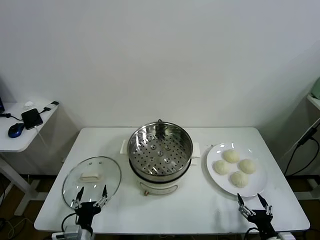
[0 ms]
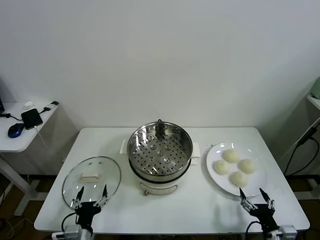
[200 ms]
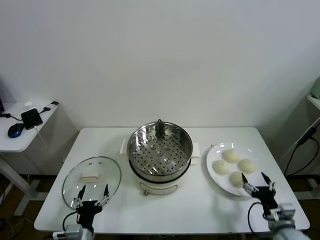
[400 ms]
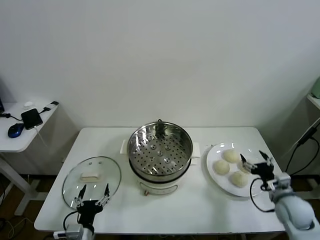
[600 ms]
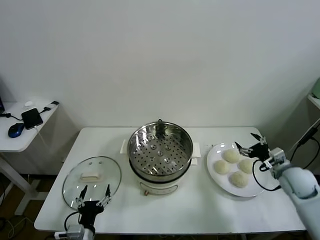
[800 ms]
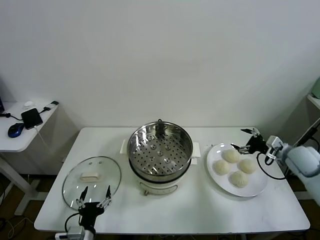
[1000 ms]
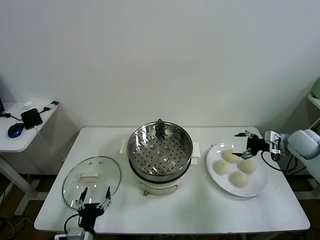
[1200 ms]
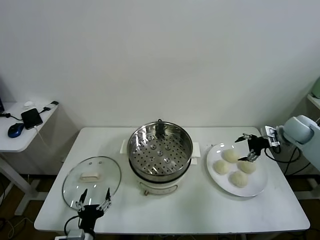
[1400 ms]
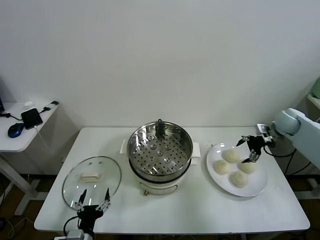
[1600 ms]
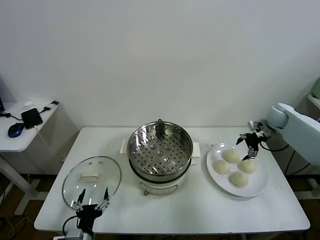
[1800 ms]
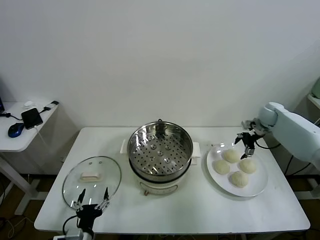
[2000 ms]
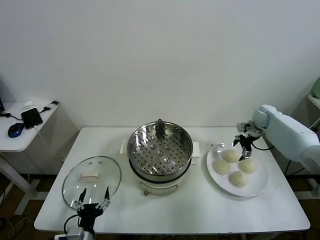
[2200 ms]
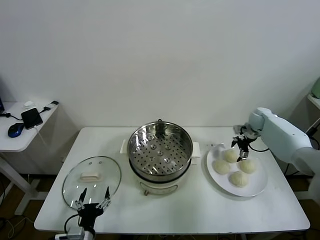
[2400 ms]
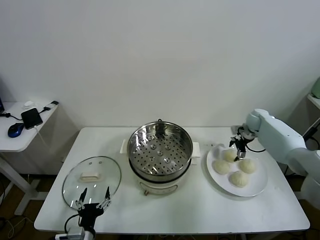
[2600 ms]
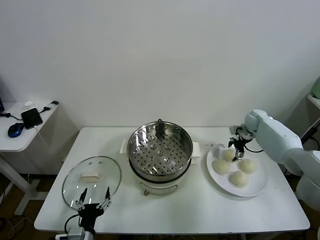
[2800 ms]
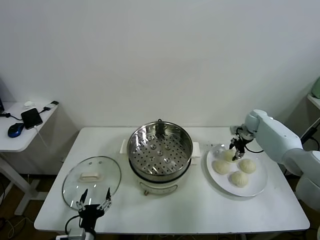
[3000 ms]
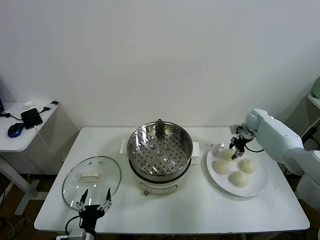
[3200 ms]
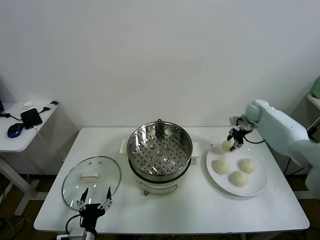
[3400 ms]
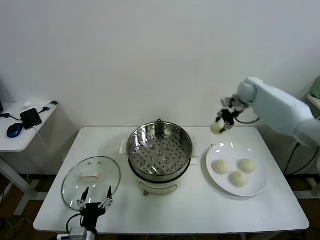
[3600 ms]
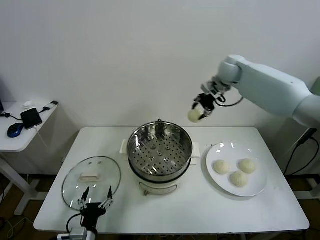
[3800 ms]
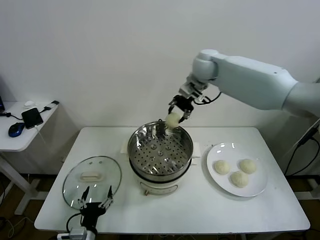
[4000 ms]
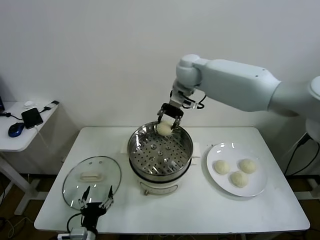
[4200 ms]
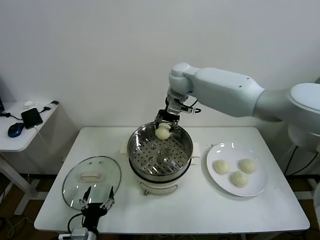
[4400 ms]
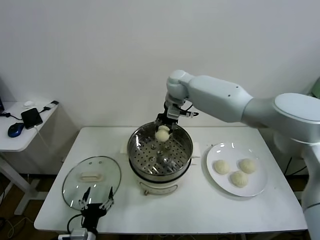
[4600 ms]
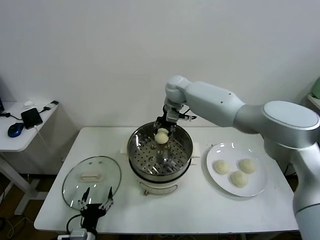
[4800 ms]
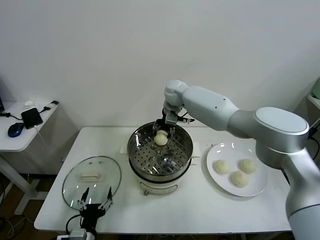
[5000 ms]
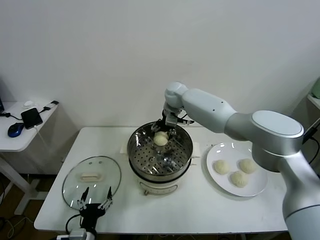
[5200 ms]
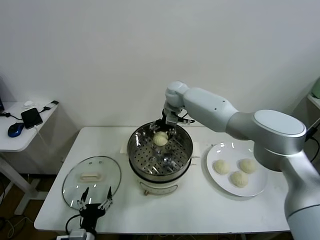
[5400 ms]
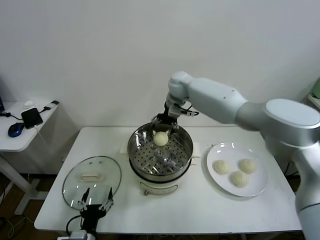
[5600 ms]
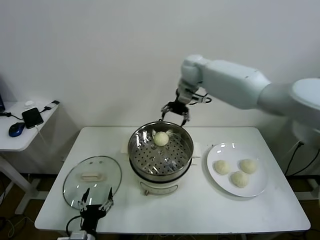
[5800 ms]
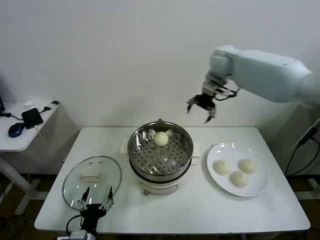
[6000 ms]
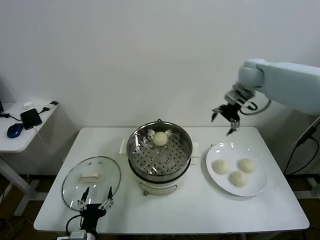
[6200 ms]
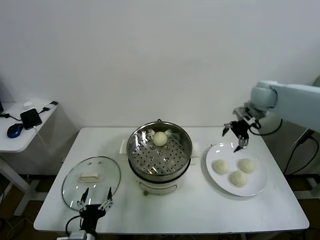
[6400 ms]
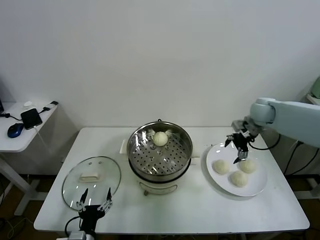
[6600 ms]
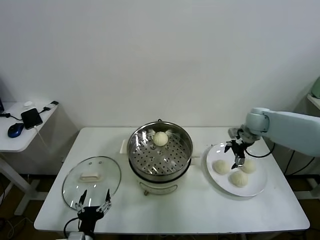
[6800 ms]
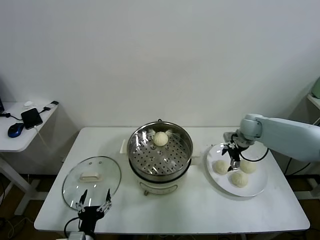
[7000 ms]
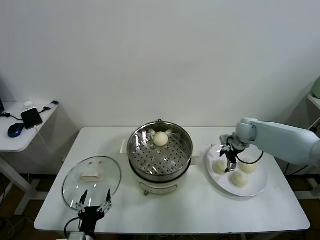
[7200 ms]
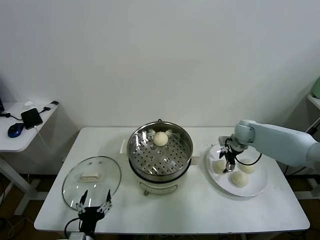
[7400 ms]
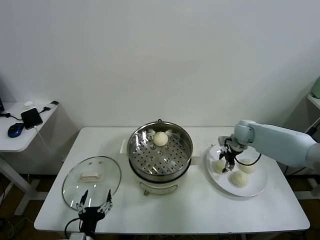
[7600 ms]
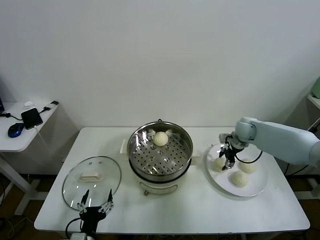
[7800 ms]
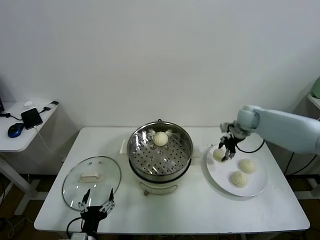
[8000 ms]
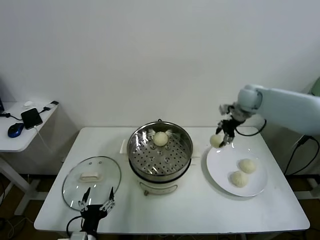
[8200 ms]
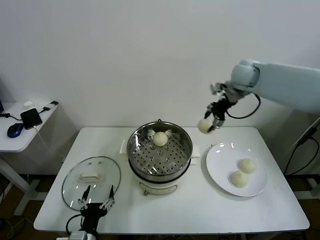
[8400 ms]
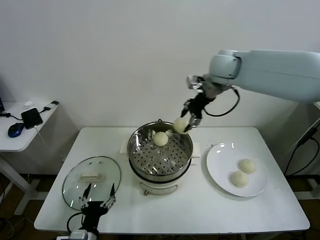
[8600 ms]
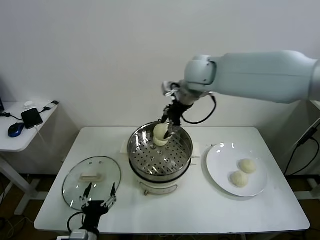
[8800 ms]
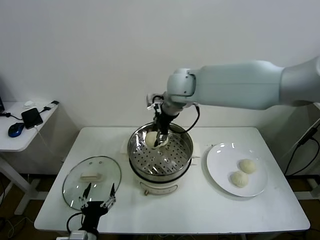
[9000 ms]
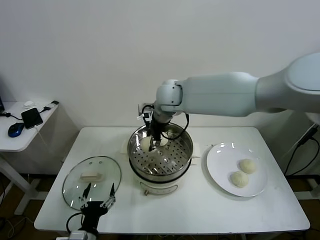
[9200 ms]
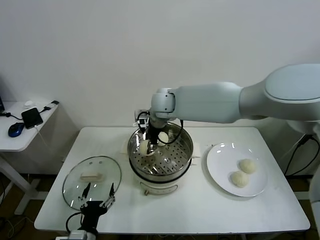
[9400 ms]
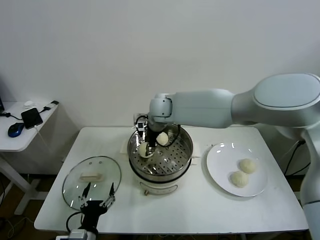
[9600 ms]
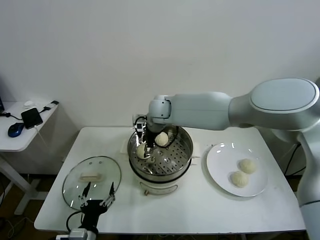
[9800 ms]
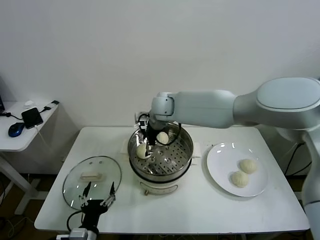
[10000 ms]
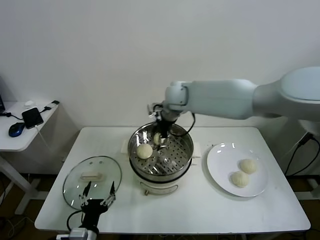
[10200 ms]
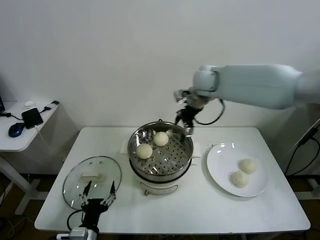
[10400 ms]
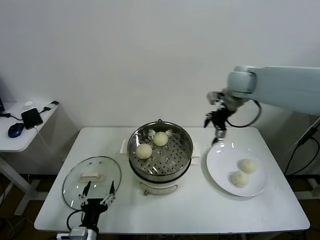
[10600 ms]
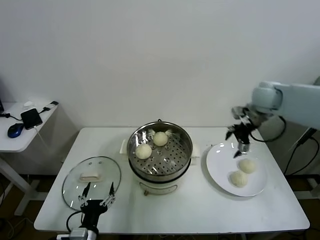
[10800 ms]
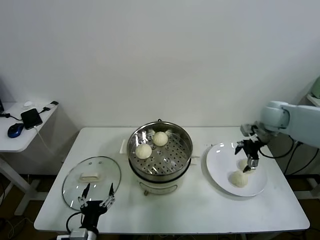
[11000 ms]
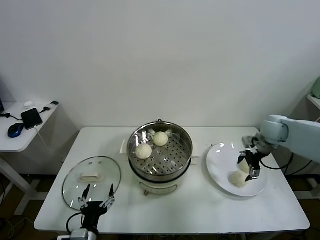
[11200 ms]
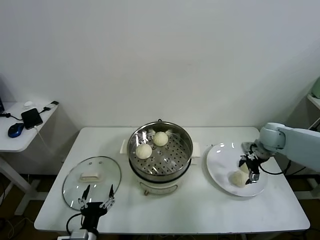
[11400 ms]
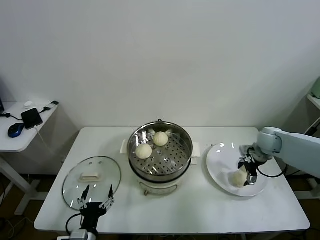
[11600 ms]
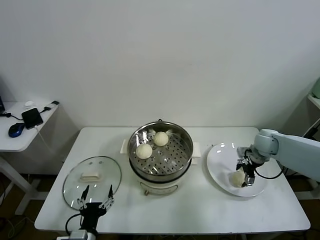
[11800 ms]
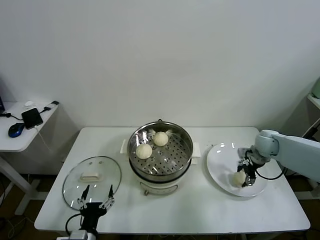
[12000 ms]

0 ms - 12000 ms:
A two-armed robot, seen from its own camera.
Task of the whole recording: take steamed baozi put them in steamer.
Step, 0 ms - 3200 ms: Grasp the baozi in the plate with right gripper.
Step, 3400 ms - 5400 ms: Place the baozi on the steamer with right gripper.
Step, 5600 ms - 7600 ms: Grasp the baozi in the plate with right gripper.
Step, 7800 ms - 9800 ms: Place the baozi on the steamer with right gripper.
Step, 10200 ms - 12000 ms: Grasp the baozi in the plate with right gripper.
1600 ms - 3000 ms: The right gripper shifts approximately 10 cm downward and forward, and closes.
3000 ms - 4400 ms: The right gripper goes roughly 40 cm to the left and upward.
4400 ms - 6000 ms: The right gripper is displaced to the right by some 20 cm, and opens up.
6000 ms - 7600 ms: The right gripper is displaced downward by about 25 cm, and closes up.
7600 ms - 9000 ms: The right gripper shifts about 35 cm to the left and upward.
9000 ms - 10400 ms: The right gripper heads to the right, covering some 15 cm, and opens.
10400 ms - 12000 ms: The right gripper goes about 30 cm downward and to the right, and closes.

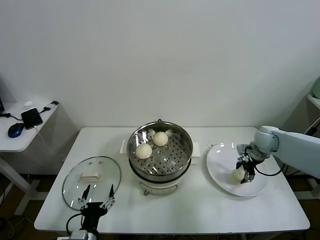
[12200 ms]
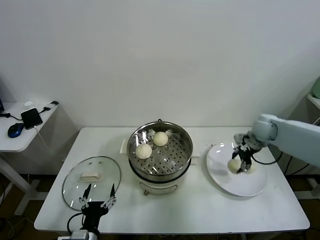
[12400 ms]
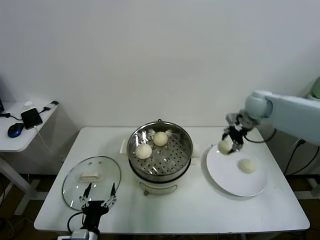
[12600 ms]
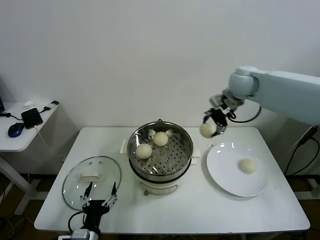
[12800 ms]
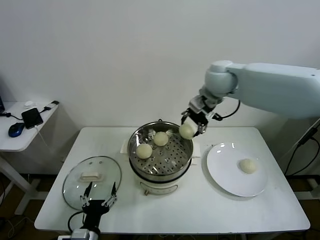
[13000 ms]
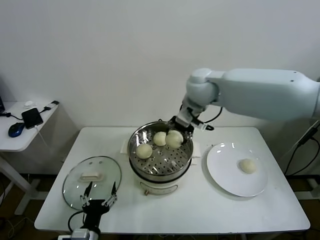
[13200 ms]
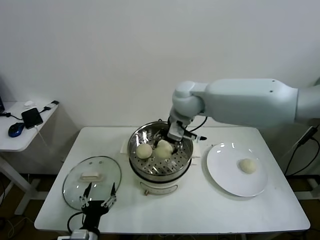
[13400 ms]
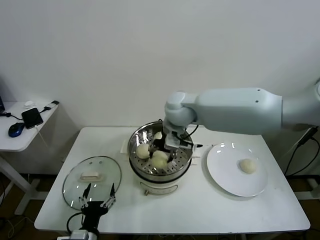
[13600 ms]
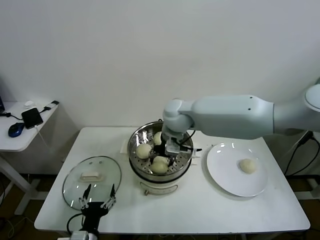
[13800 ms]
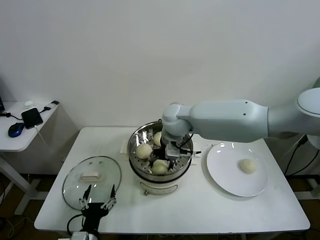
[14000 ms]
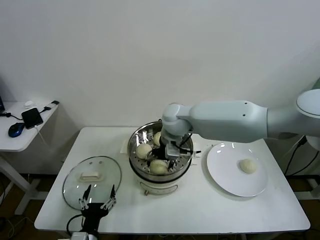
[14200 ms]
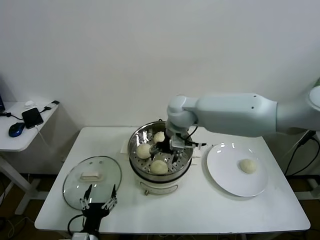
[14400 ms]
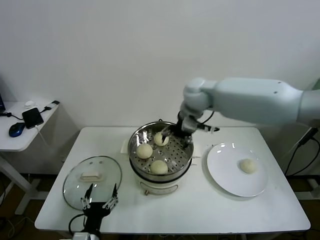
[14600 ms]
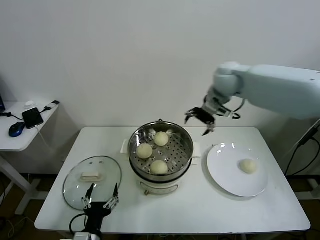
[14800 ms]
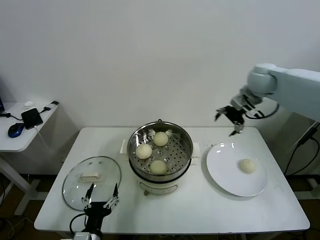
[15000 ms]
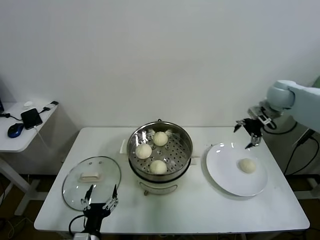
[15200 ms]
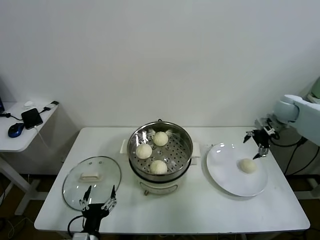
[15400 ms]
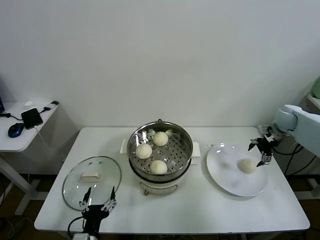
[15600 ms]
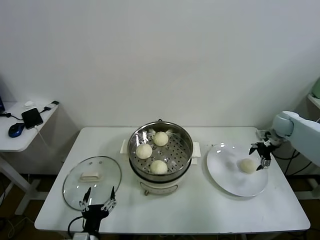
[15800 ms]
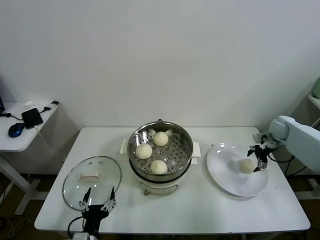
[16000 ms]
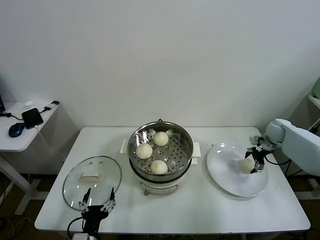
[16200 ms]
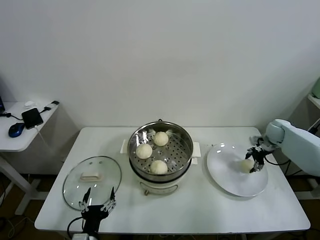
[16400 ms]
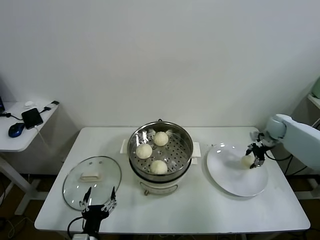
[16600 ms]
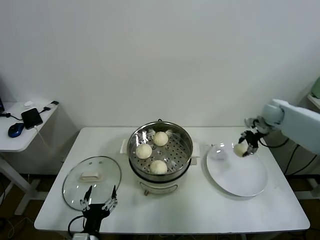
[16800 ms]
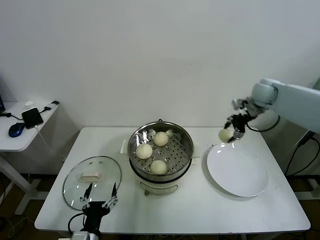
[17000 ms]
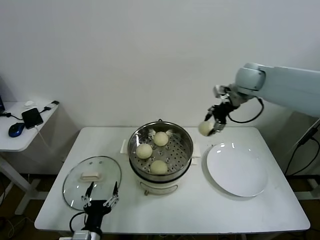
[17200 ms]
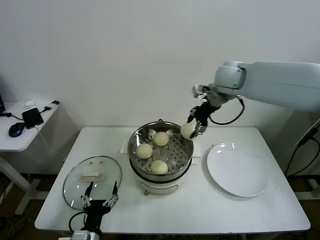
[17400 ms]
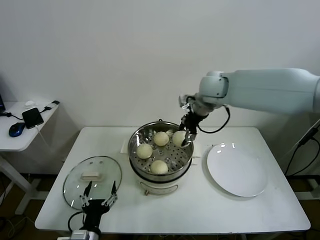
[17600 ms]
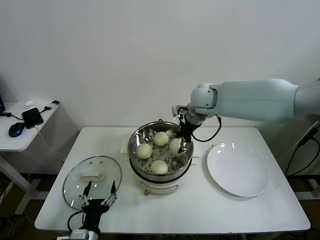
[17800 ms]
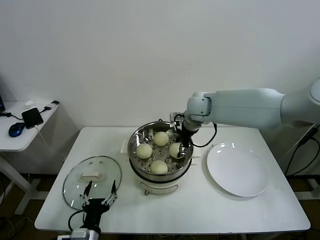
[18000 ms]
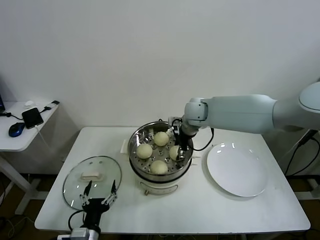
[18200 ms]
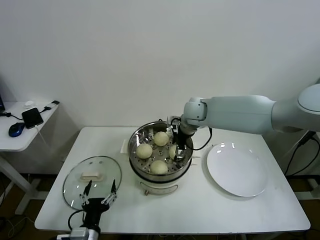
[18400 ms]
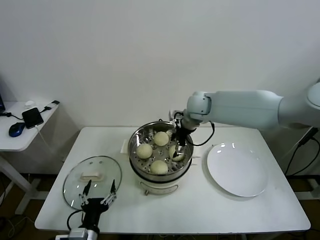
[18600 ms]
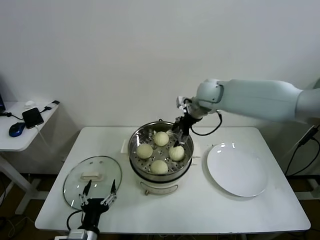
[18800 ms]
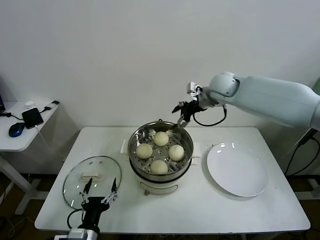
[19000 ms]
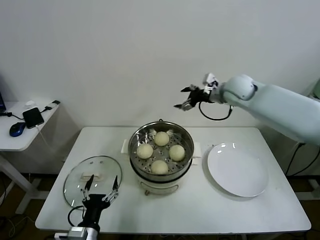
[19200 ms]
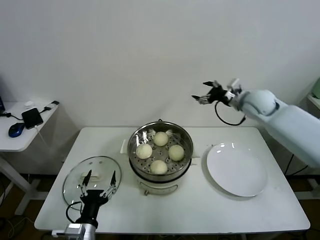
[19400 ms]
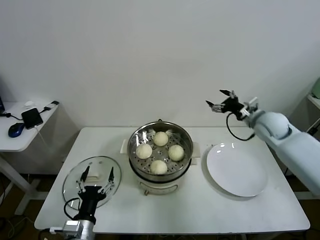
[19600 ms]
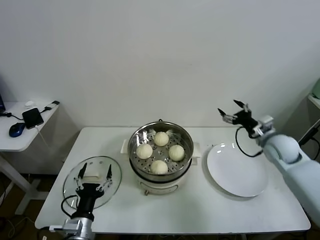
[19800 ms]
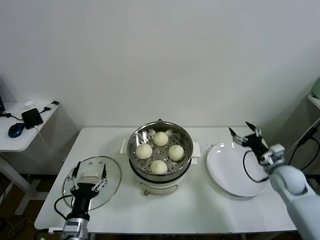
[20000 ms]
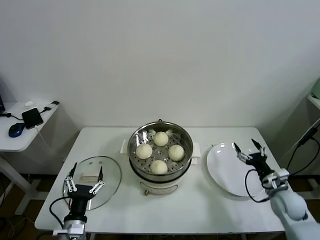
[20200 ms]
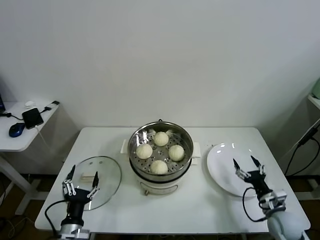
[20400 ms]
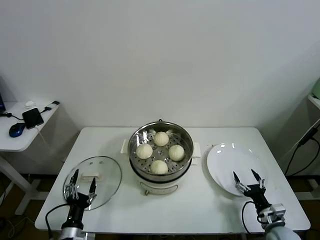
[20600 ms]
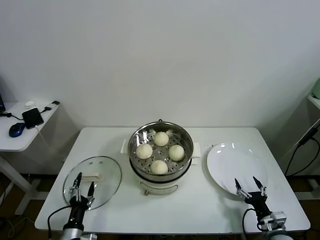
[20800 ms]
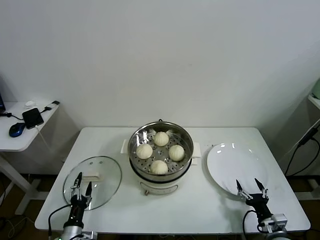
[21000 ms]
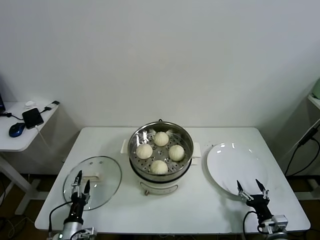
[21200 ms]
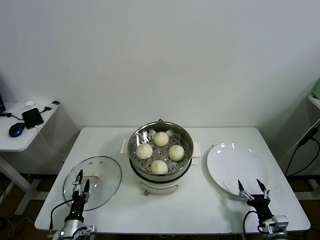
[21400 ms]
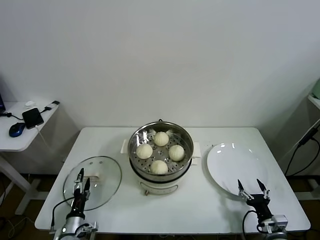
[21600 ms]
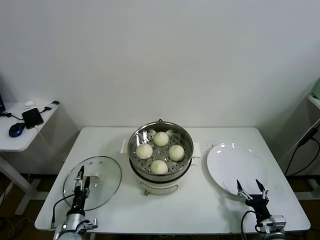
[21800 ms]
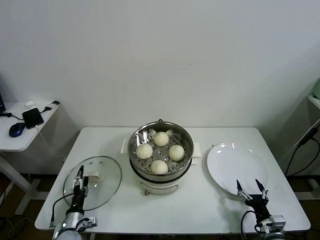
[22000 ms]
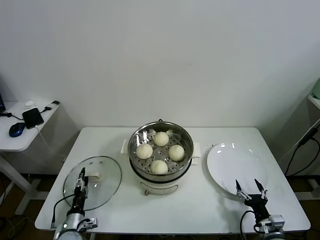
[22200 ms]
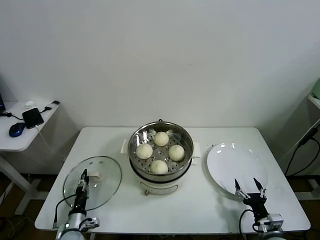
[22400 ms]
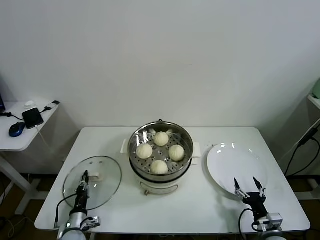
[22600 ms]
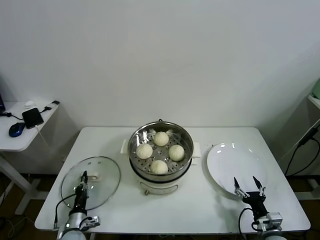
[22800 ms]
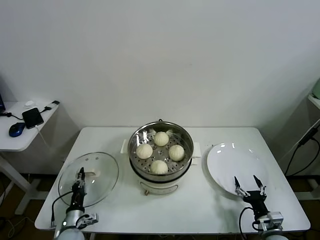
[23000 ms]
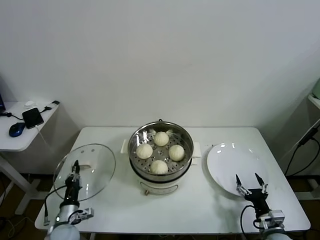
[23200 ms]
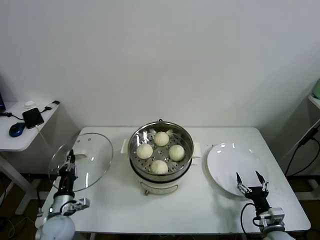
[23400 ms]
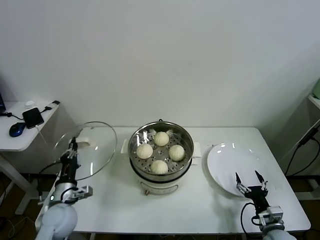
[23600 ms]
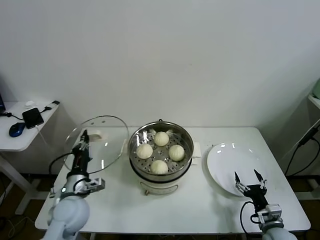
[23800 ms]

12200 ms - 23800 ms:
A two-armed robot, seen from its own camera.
Task of the whole recording: take steamed baozi put them in steamer.
Step, 12200 ms - 14200 ms: Place the baozi on the steamer with right gripper.
Step, 14400 ms - 16200 ms: Grasp the baozi in the plate with right gripper.
Step, 16600 ms - 18400 ms: Place the baozi on the steamer with right gripper.
Step, 18600 ms - 22600 ms: Grasp the pot lid with left gripper.
12200 ms - 13600 ms: The right gripper goes about 35 cm to the left and upward.
13600 ms - 15000 ms: The right gripper heads to the right, covering approximately 30 cm, and opens.
15000 ms - 16600 ms: The right gripper is displaced downward and to the right by approximately 25 cm, and closes up.
16600 ms - 18000 ms: The right gripper heads to the left, covering roughly 35 cm.
18000 ms - 19400 ms: The right gripper is displaced to the right by approximately 20 cm, and opens up.
19400 ms - 21000 ms: The left gripper is displaced downward and to the left by roughly 15 cm. The right gripper shifts some 50 cm downward and backward.
21000 ms - 22400 ms: The left gripper is displaced forward by approximately 5 cm, and closes up.
22400 ms - 23800 ms: The left gripper is displaced upward by approximately 20 cm, and closes up.
